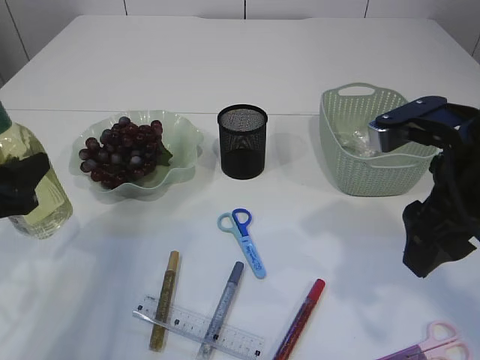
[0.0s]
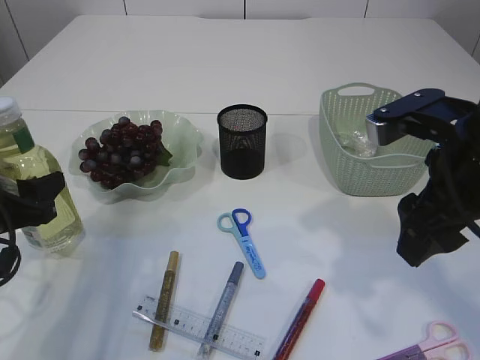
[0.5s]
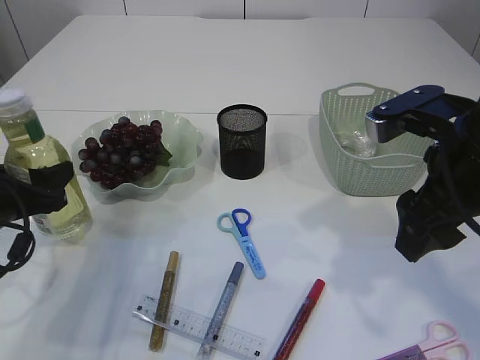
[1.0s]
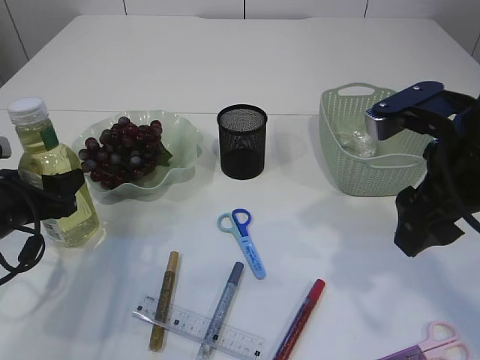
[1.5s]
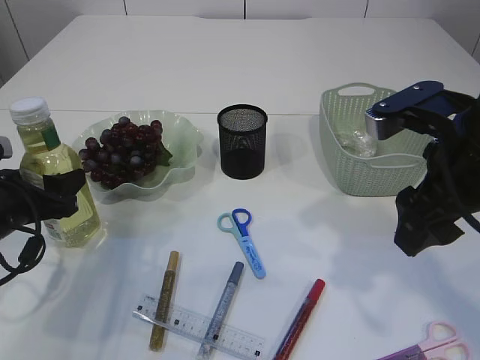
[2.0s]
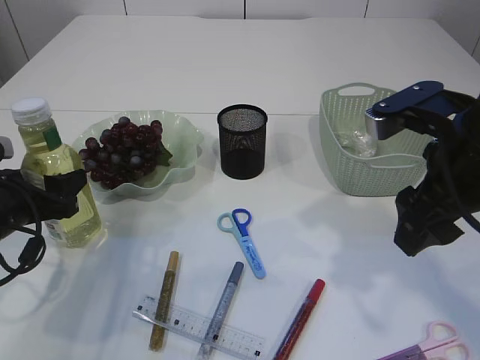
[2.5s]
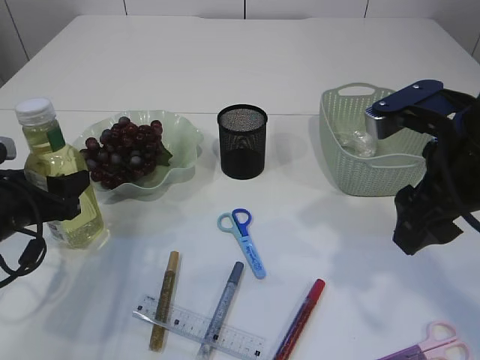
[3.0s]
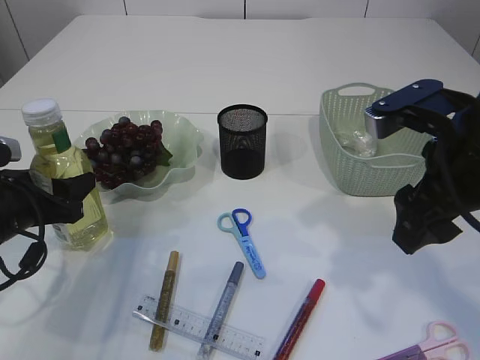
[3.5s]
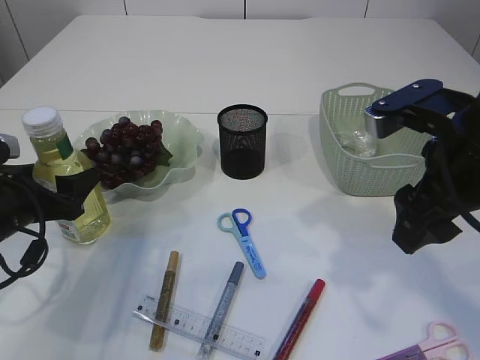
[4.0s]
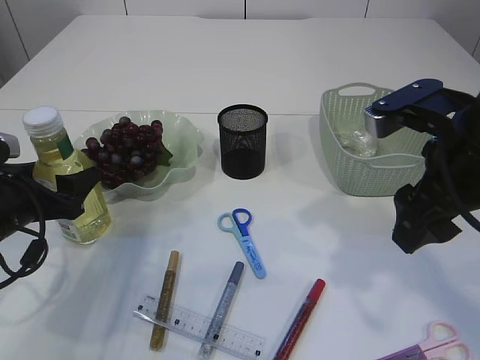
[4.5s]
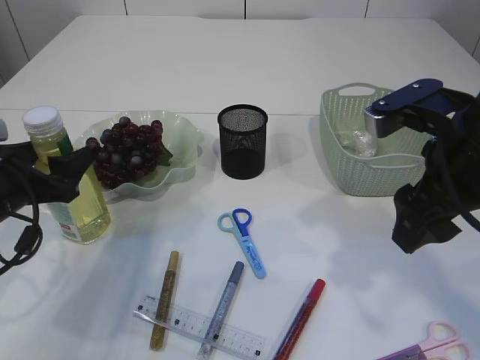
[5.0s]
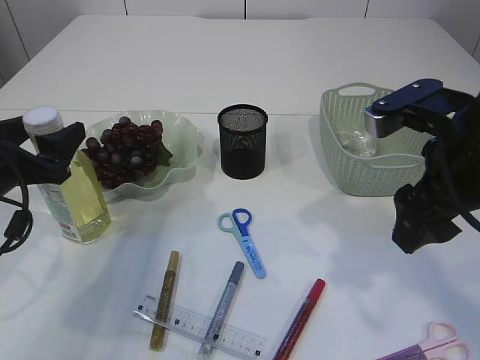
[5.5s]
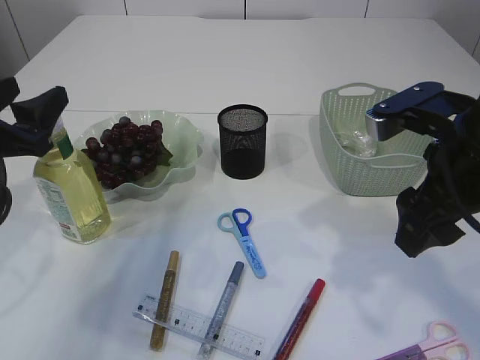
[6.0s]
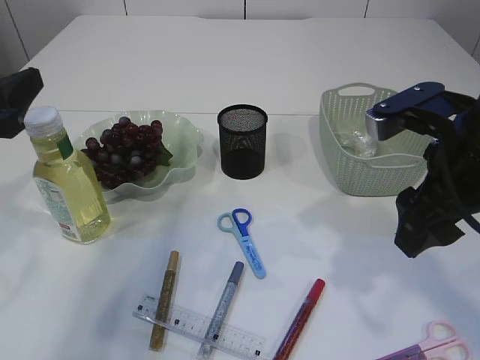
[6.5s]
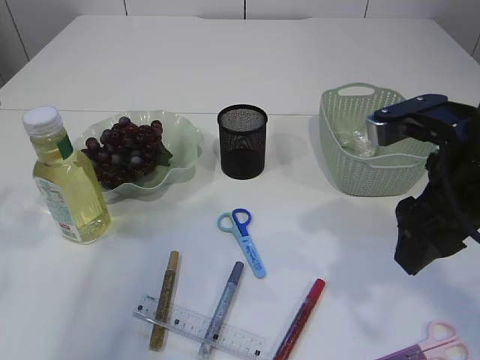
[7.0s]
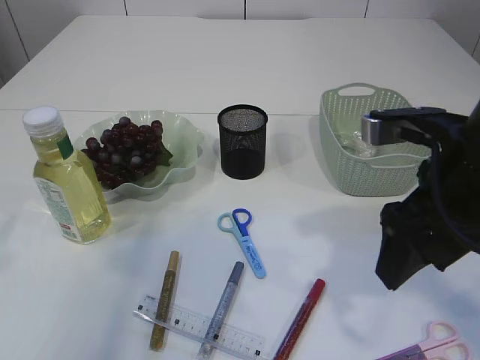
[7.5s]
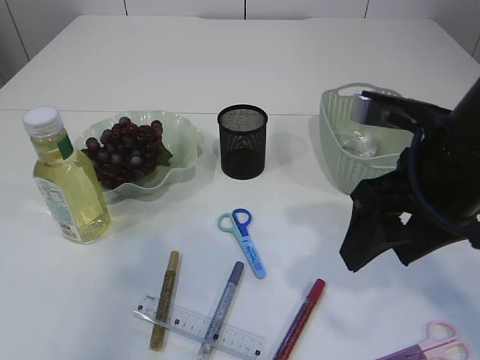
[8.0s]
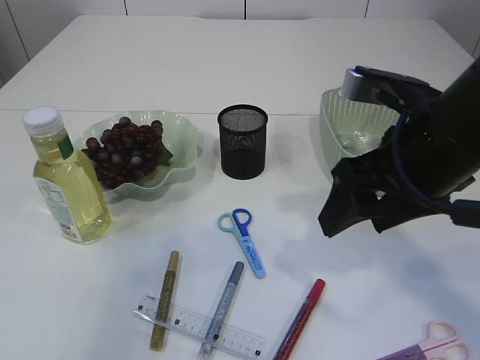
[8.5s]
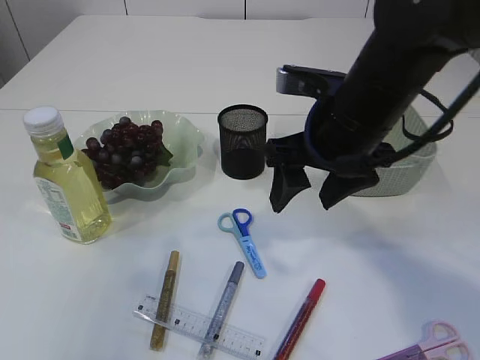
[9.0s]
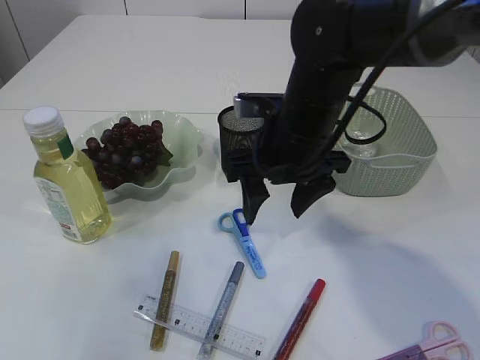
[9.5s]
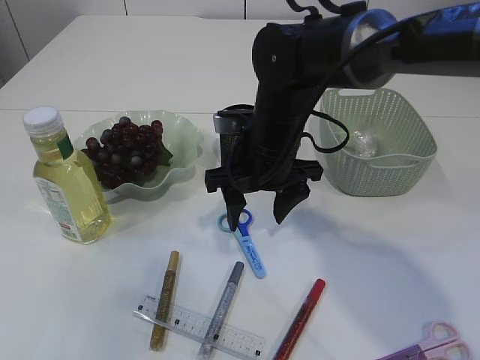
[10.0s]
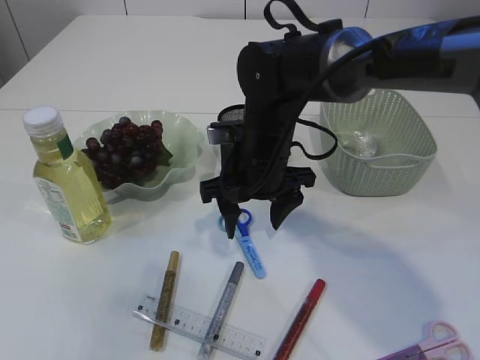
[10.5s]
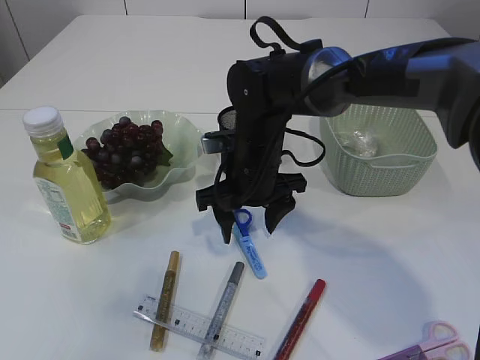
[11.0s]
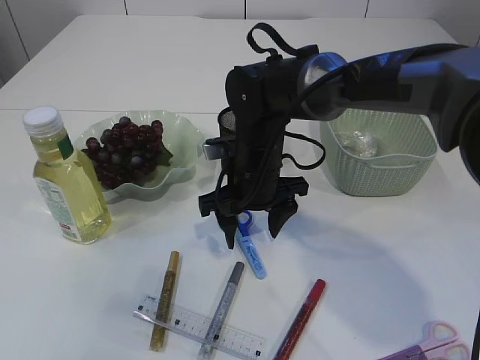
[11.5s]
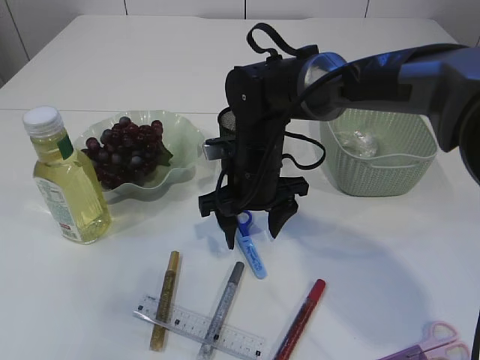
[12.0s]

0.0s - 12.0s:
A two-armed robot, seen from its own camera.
Step, 0.0s - 6.5s: Place the bottle.
0.0s - 2.0s: The left gripper moves approximately 5 cm.
2.0s - 4.0s: There are only small adjustments of the grippers.
4.0s - 6.0s: The left gripper shifts roughly 10 cm upward.
6.0s - 8.0s: The left gripper travels backward and upward by some 20 cm.
8.0s - 10.0s: The right gripper is displaced forward, to the left and downward by roughly 20 cm.
10.0s - 12.0s: The grippers make only small movements.

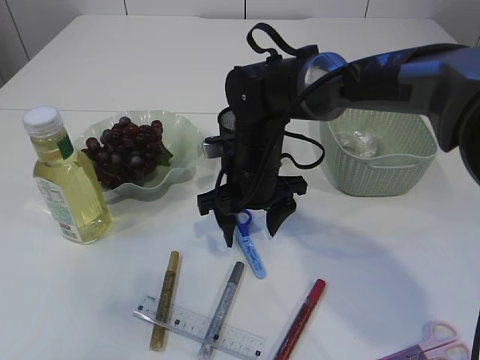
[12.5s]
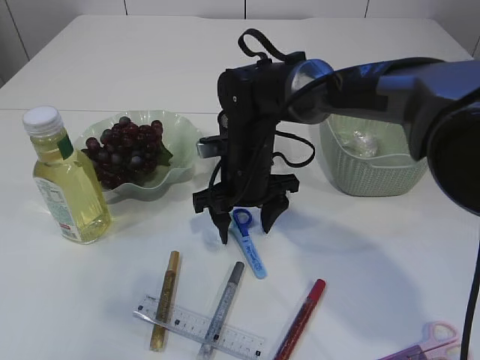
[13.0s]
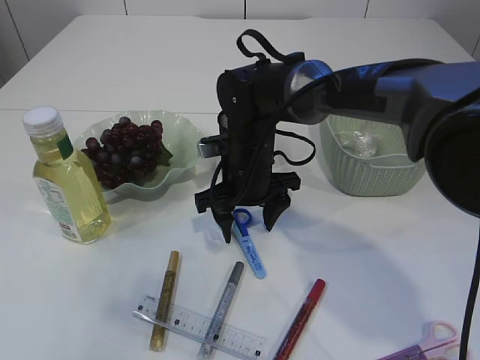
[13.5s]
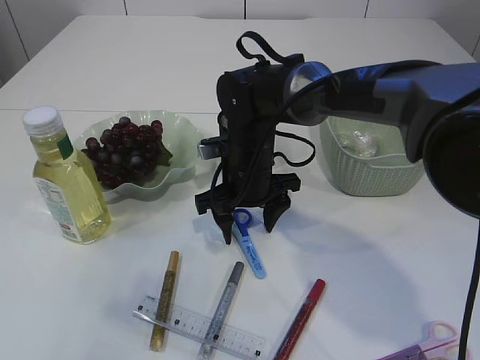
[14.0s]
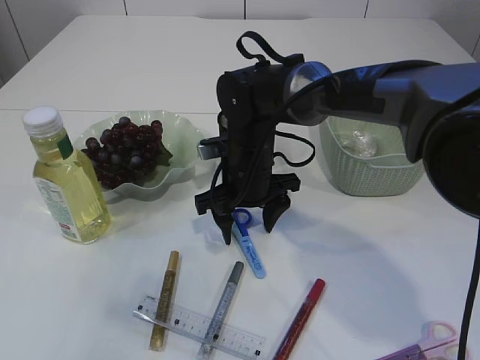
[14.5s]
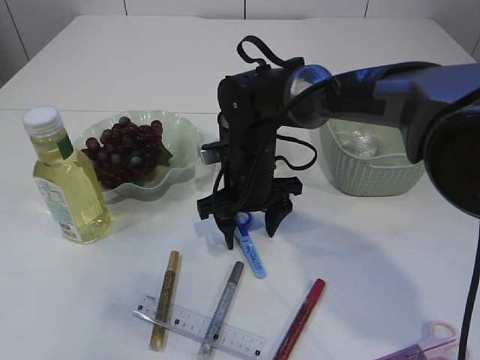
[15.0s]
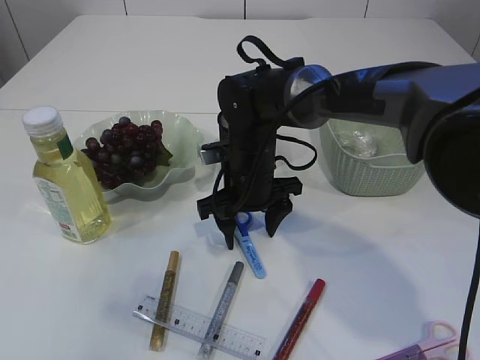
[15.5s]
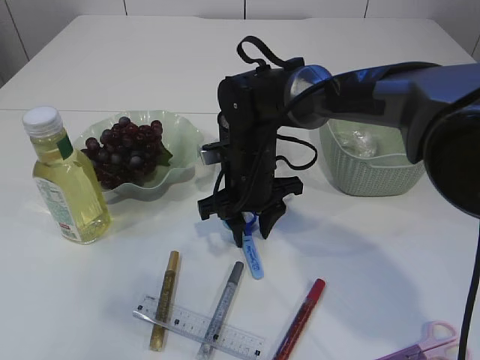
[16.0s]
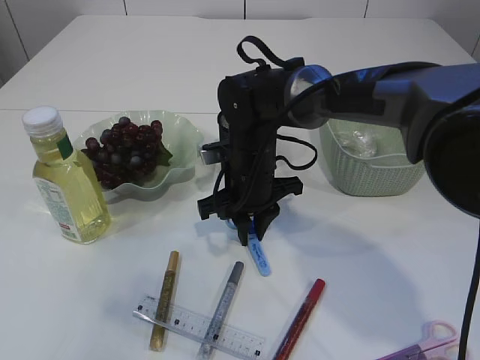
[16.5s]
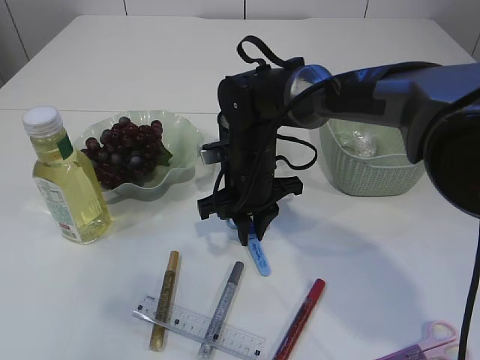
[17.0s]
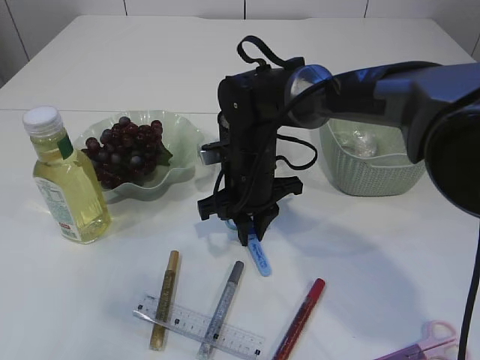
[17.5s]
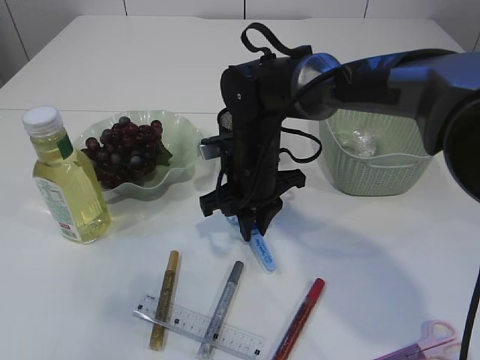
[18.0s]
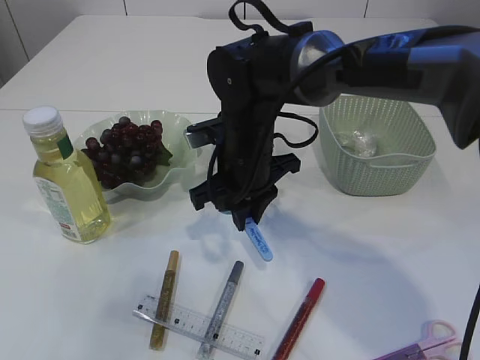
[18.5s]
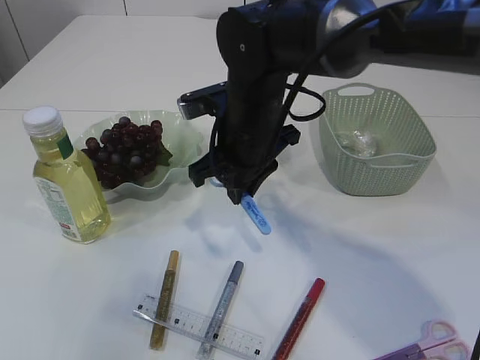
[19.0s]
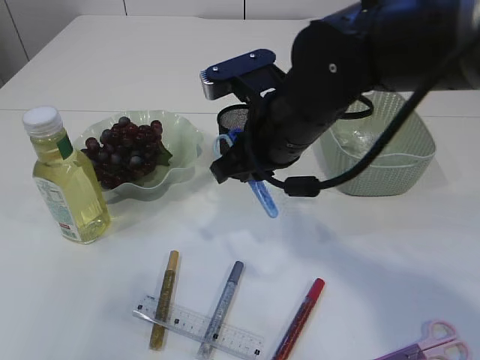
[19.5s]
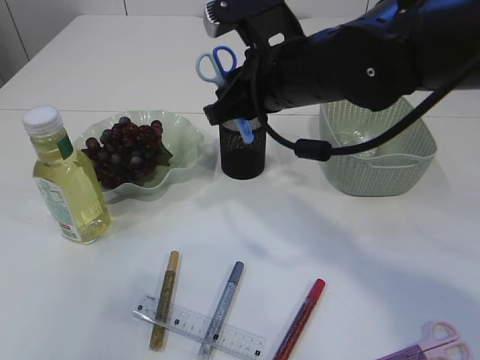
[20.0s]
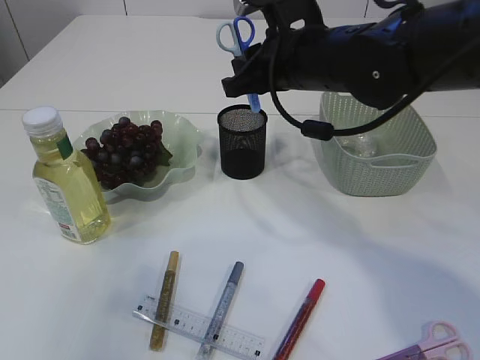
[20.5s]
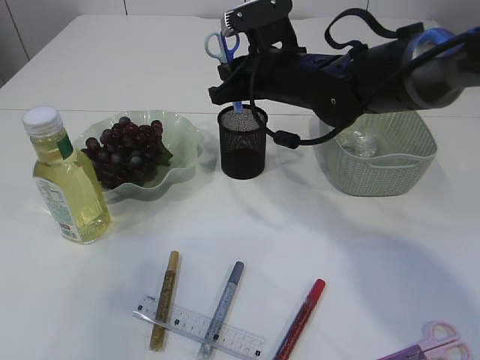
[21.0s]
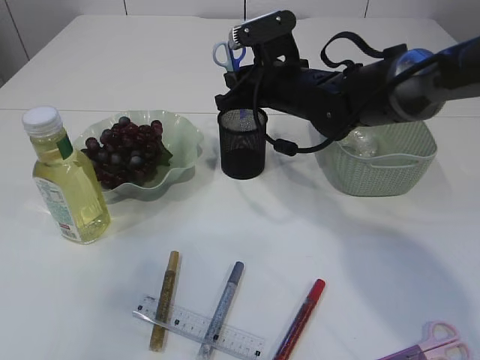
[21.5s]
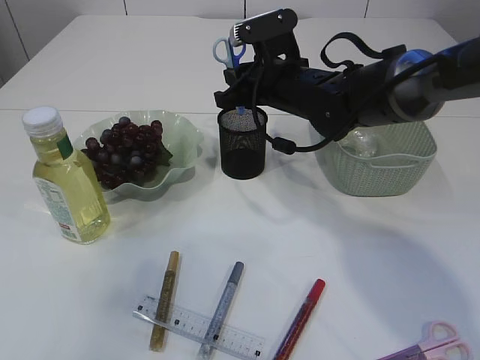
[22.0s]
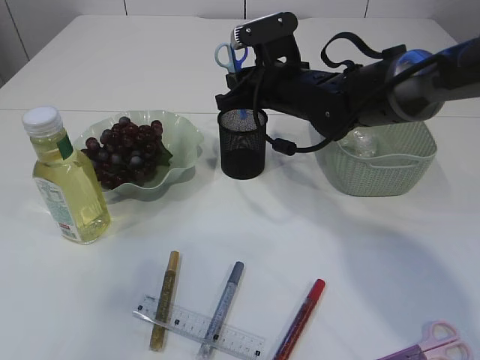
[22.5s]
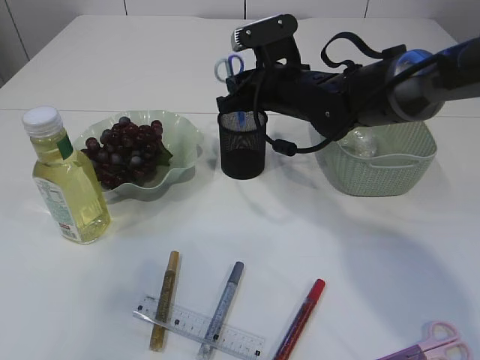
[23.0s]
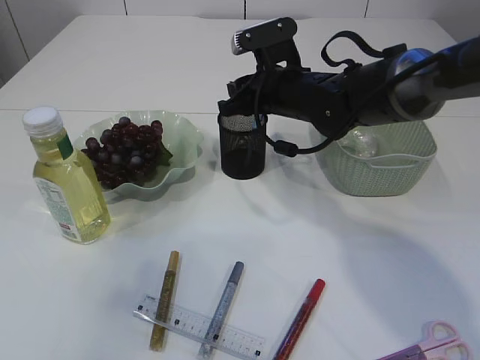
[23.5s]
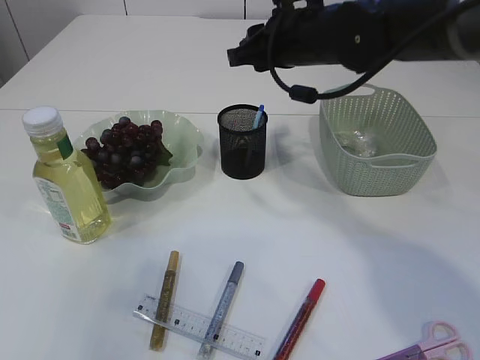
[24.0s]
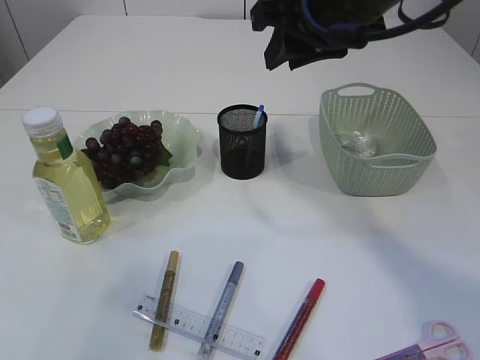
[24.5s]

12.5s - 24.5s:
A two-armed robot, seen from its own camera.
Step, 12.5s - 19.0s: pick up the blue scissors.
Step, 19.5s - 23.5s: Place the blue scissors into the pen holder.
12.5s - 14.5s: The grippers stay close to where they were, moving slightly.
14.5s - 16.5s: The right gripper closes up.
16.5s - 18.5s: The right gripper ends up some 5 cm from where it was.
18.5s - 20.5s: The right gripper goes approximately 10 cm upward and to the right.
20.5s - 22.5s: The right gripper shifts some 10 cm downward and forward.
22.5s - 24.5s: The right gripper travels upward and backward by about 15 cm.

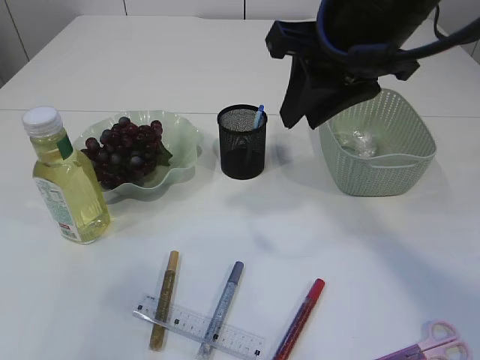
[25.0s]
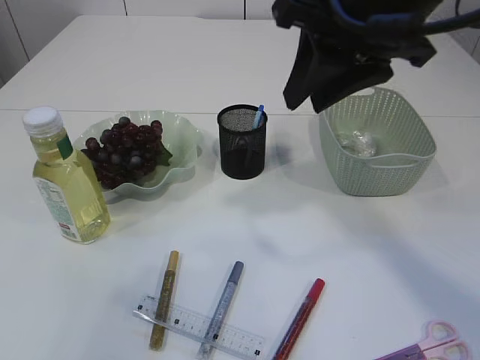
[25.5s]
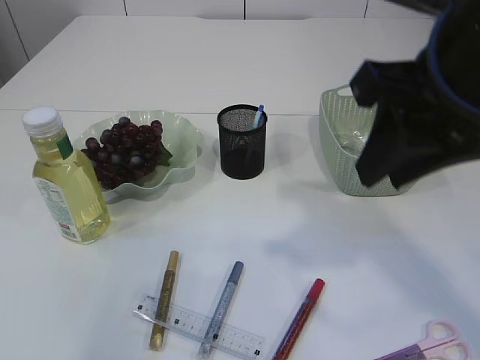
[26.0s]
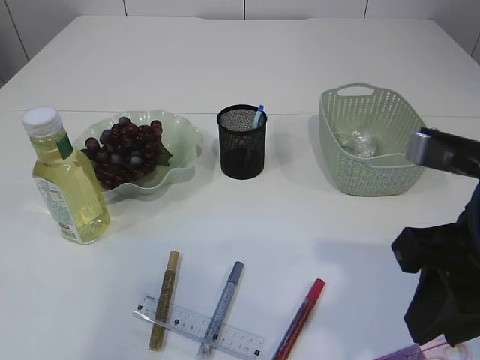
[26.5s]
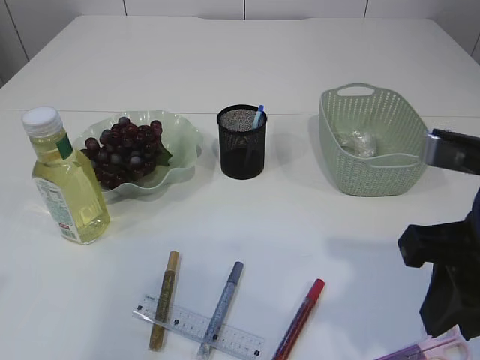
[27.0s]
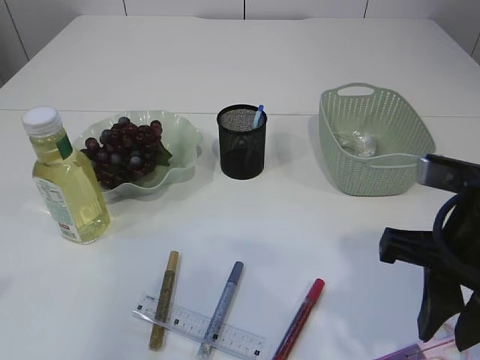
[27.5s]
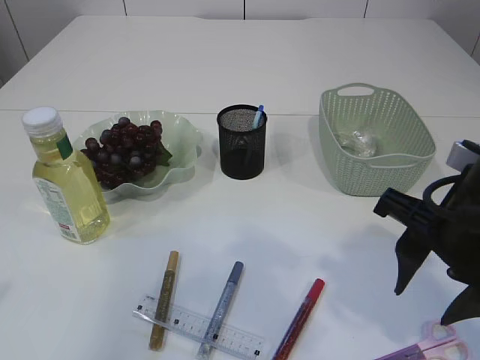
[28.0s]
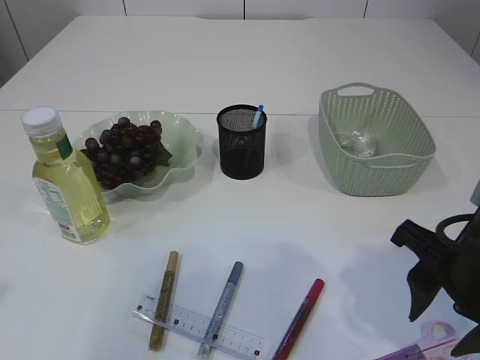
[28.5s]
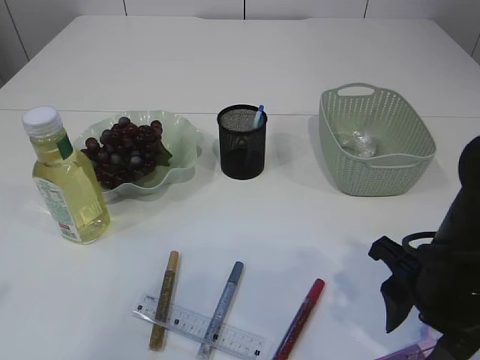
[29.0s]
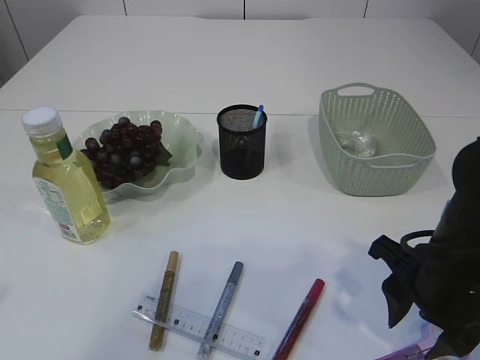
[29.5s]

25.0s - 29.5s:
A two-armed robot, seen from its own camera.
25.0s - 27.0s: The right gripper is displaced backward, downward and to the right by approximately 15 cm.
27.0s - 29.5s: The right gripper heads downward, covering about 10 cm.
